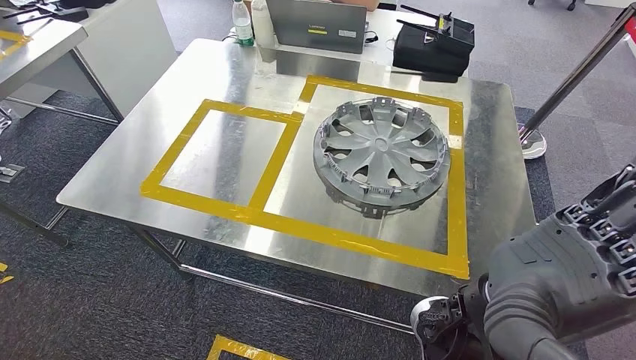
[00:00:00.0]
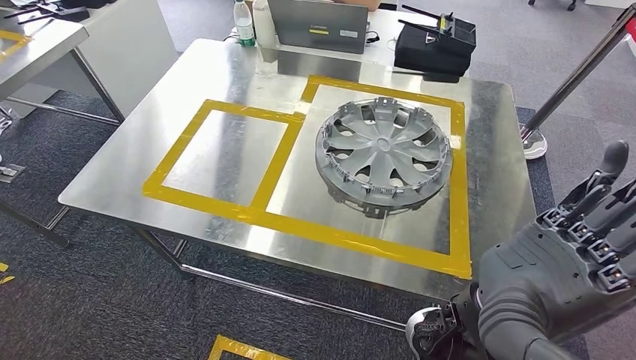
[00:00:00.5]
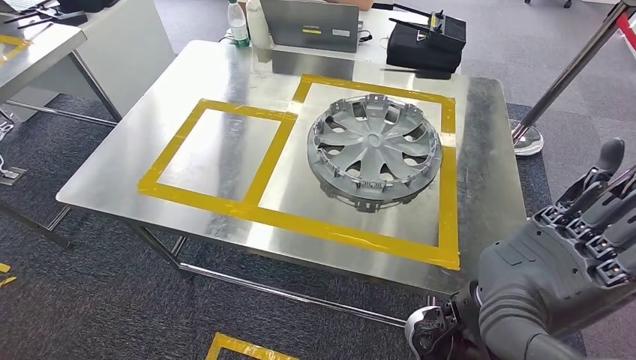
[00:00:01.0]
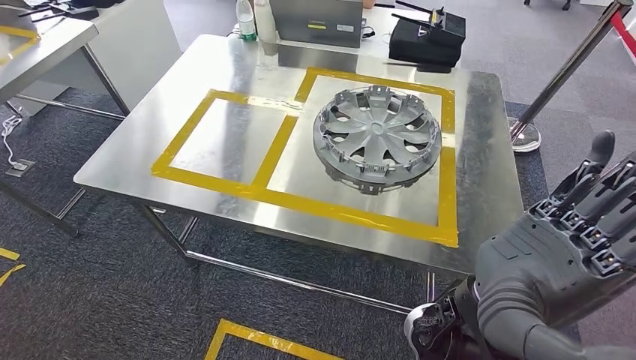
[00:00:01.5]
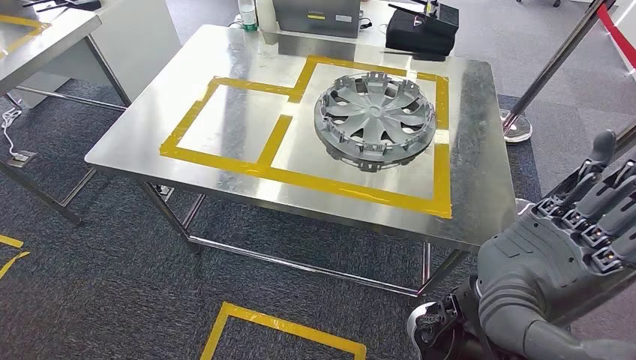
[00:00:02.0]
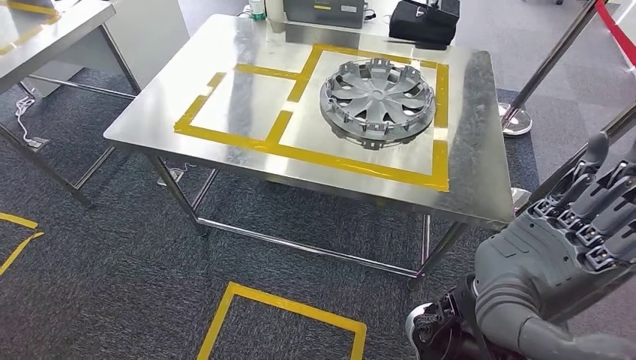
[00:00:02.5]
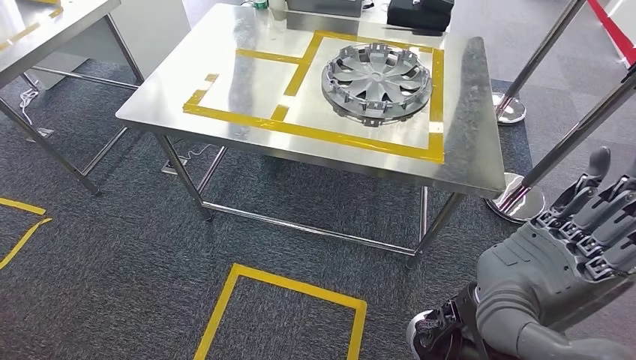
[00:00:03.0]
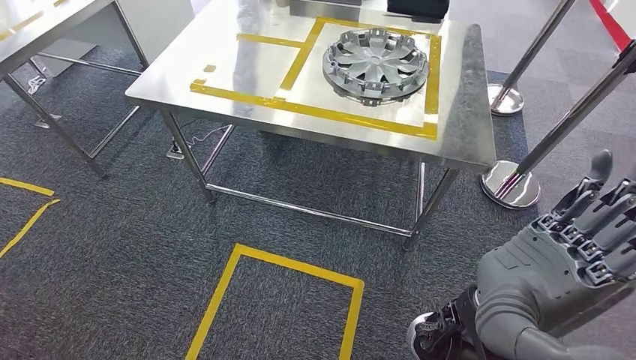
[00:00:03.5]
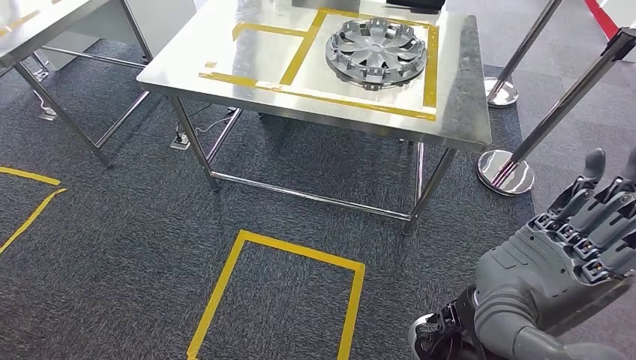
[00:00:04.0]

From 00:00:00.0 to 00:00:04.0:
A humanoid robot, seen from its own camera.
Step, from 00:00:00.0 to 00:00:04.0: Move to the initial position of the workbench.
